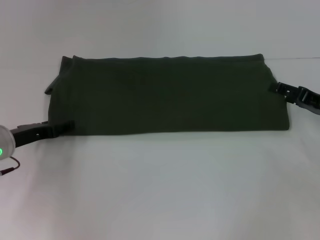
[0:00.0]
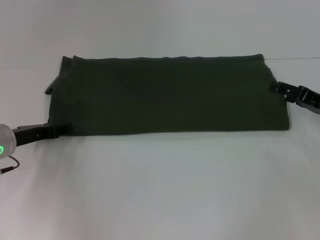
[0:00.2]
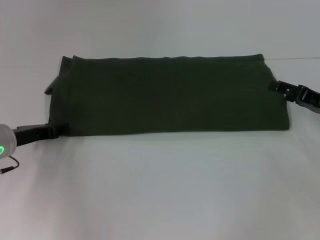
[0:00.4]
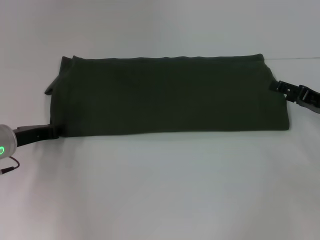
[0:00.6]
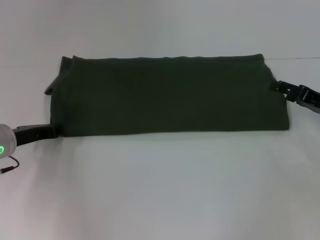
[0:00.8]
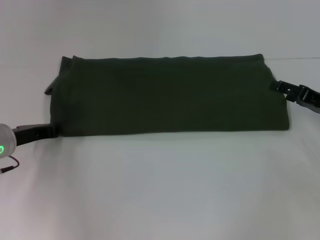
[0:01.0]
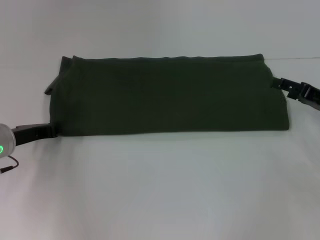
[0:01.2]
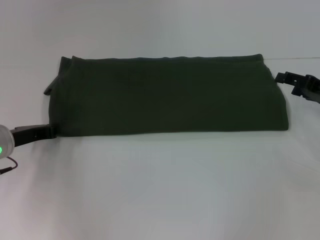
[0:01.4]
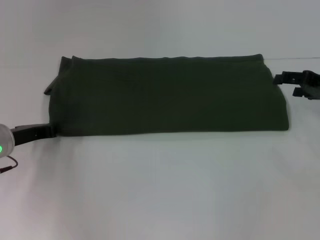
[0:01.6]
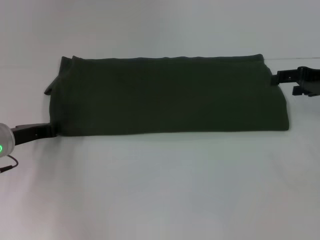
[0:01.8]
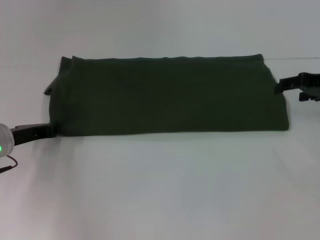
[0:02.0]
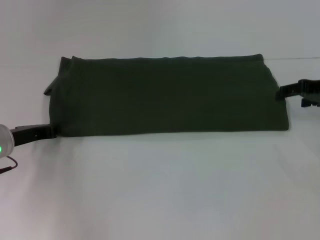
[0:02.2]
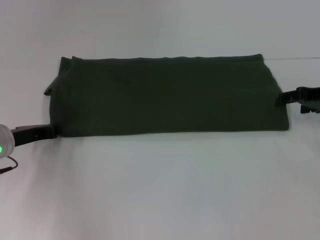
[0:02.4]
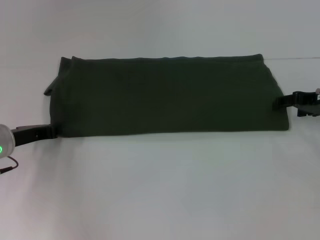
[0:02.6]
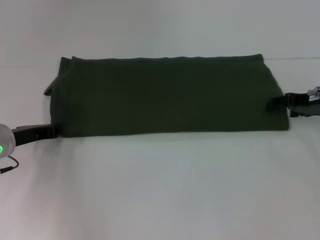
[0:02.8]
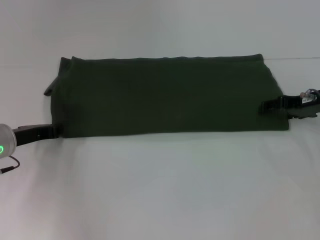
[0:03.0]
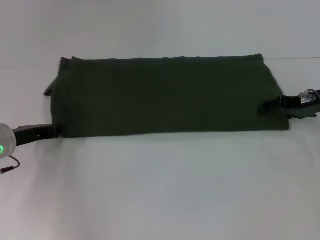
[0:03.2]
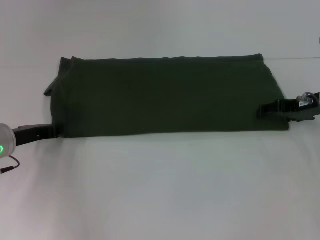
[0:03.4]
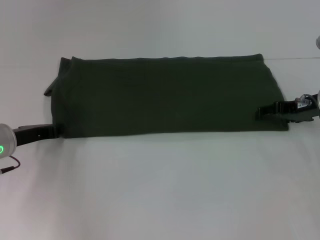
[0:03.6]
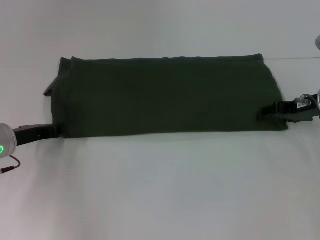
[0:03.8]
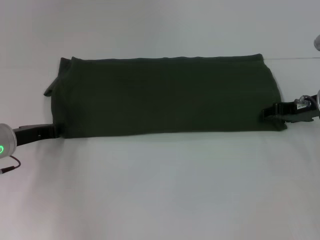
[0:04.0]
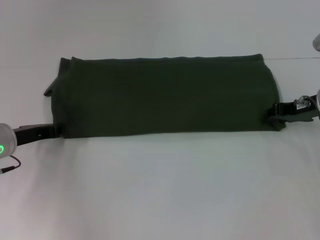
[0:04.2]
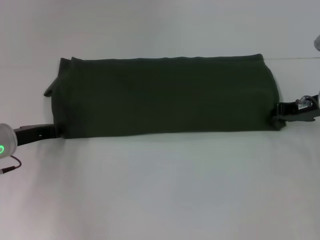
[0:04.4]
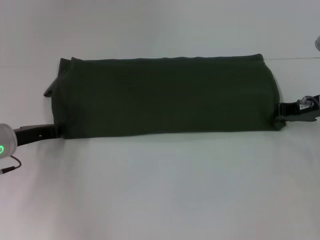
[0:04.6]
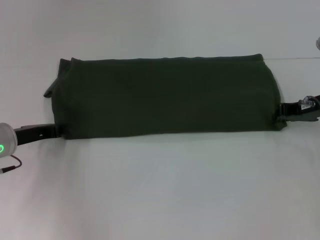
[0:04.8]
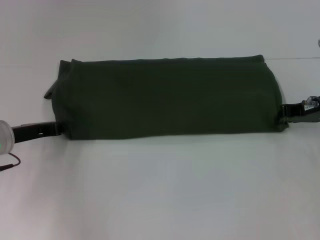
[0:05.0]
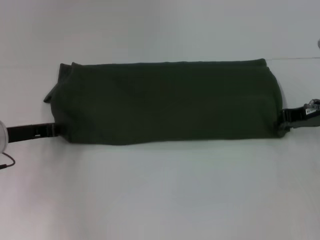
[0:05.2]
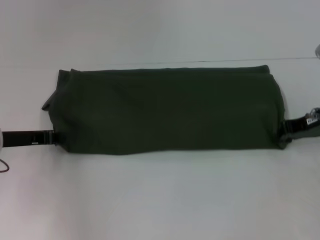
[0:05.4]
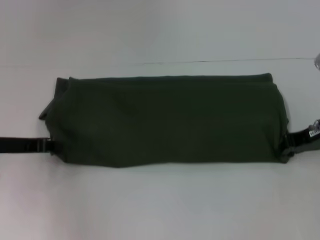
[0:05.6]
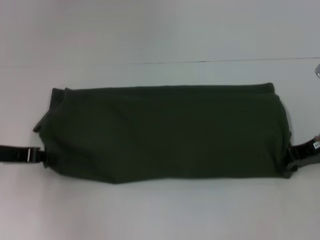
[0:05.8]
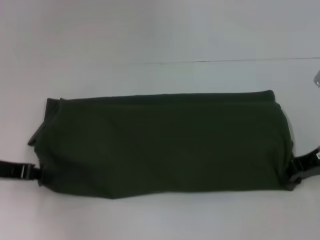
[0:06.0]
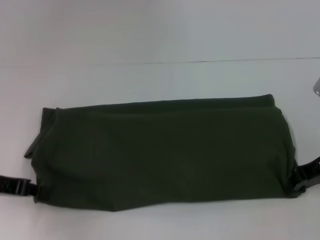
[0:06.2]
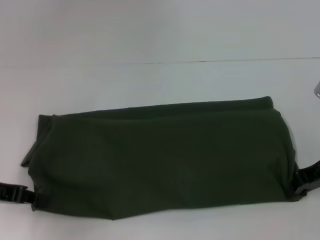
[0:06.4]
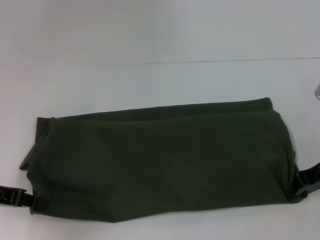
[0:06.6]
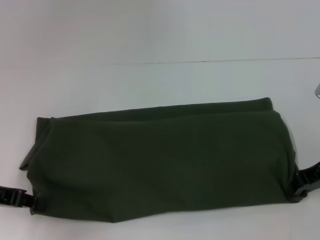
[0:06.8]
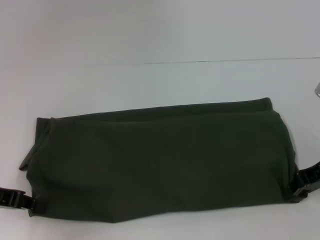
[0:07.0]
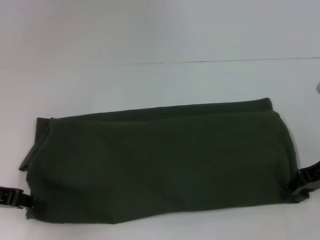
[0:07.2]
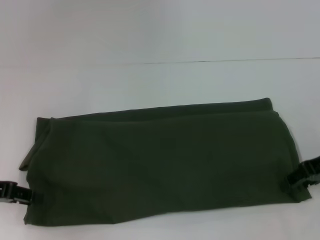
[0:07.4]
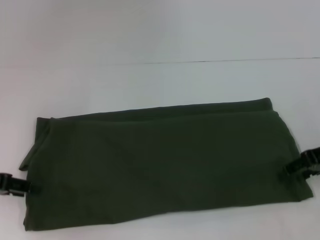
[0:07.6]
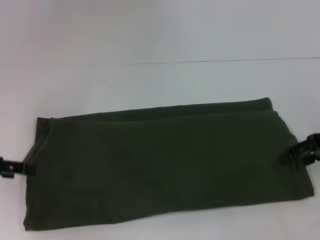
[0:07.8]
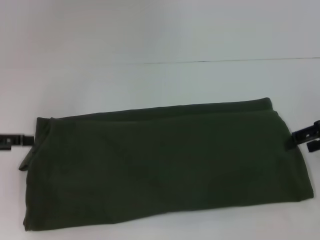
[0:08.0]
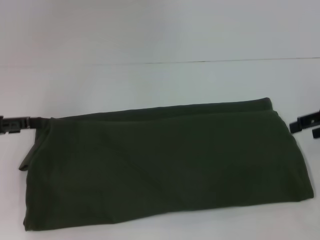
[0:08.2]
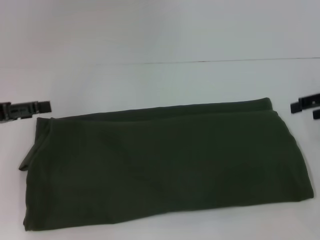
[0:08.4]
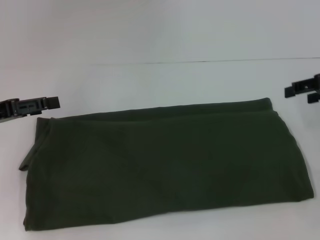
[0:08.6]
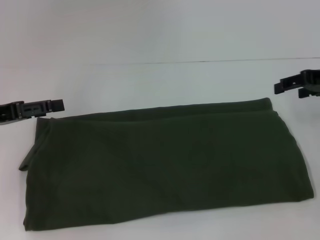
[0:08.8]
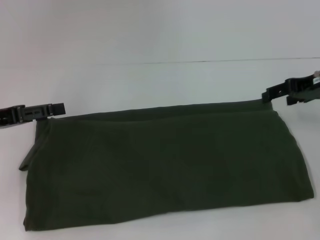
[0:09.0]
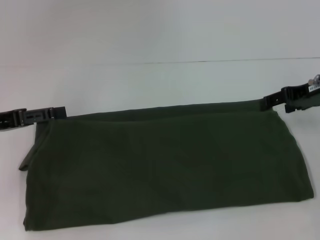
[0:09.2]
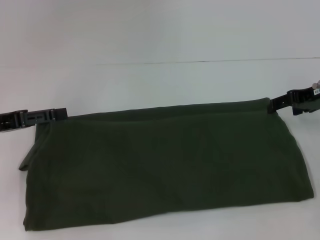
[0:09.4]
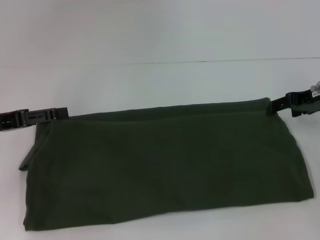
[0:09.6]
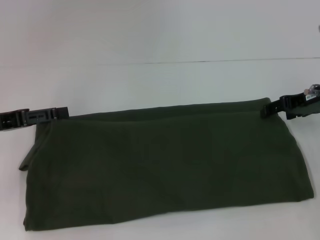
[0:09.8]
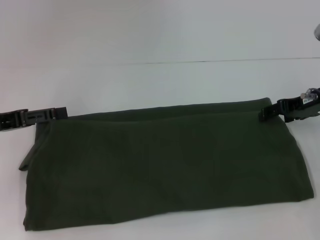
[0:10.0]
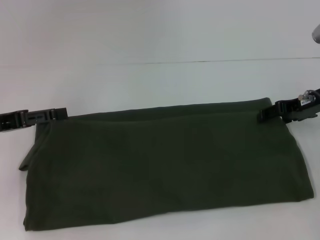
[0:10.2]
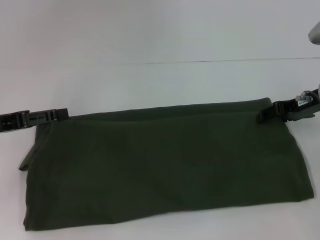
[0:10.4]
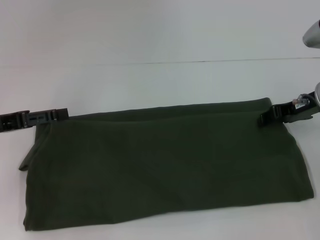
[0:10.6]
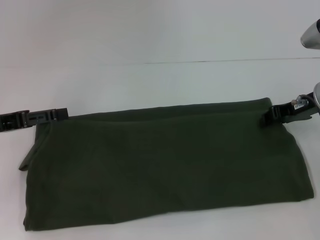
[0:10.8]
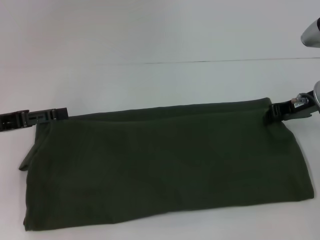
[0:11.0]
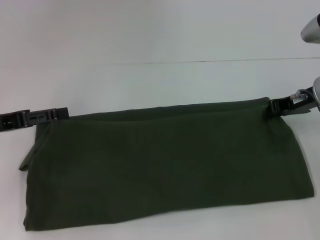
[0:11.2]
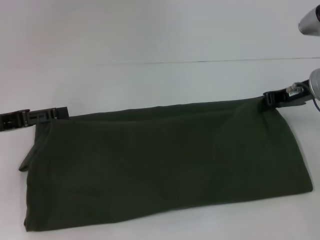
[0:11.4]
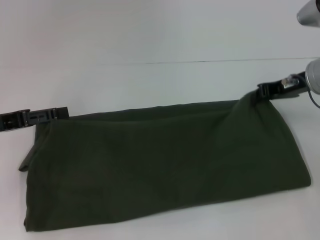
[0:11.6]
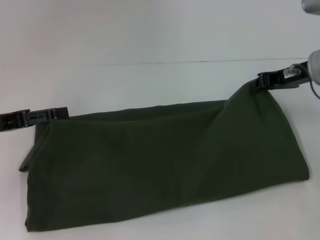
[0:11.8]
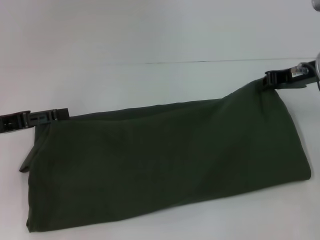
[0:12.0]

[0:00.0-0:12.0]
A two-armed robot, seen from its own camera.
Step, 0:00.0 to 0:07.6: Pull the clothes with your left hand.
Step, 0:00.0 to 0:07.6: Pull the clothes with your right hand.
0:00.0 to 0:01.6: The left gripper closes; the right gripper moves upward, some 5 cm.
0:01.6 to 0:03.0: The grippers move only a little.
0:03.0 to 0:04.4: The right gripper closes up.
0:04.4 to 0:06.0: The left gripper is displaced upward by approximately 5 cm. Meanwhile the right gripper heads backward, covering roughly 5 cm.
0:06.0 to 0:07.6: The right gripper opens up, while the left gripper opens its fingers.
0:07.6 to 0:09.0: The right gripper moves forward, roughly 5 cm, and opens up. Meanwhile the left gripper opens.
0:09.0 to 0:10.4: The grippers make only small movements.
0:10.4 to 0:12.0: The right gripper closes up.

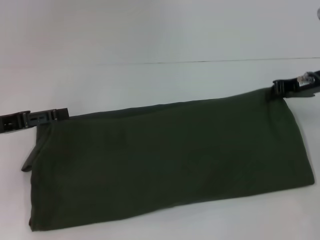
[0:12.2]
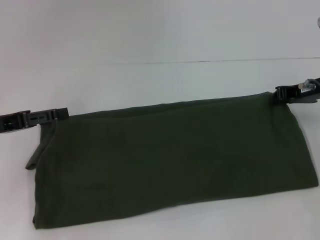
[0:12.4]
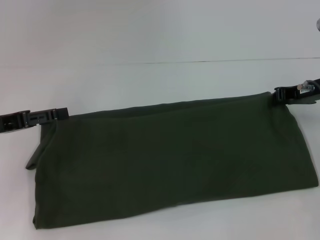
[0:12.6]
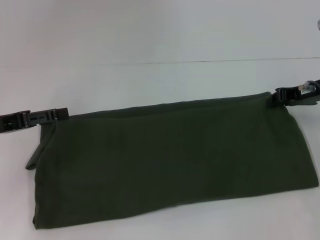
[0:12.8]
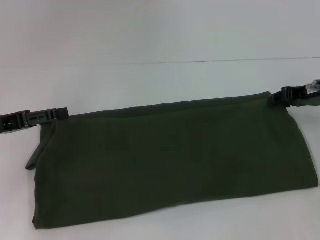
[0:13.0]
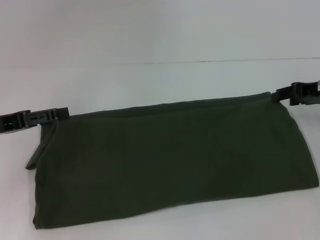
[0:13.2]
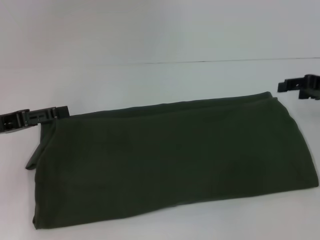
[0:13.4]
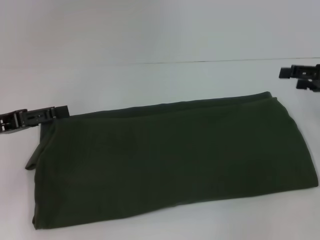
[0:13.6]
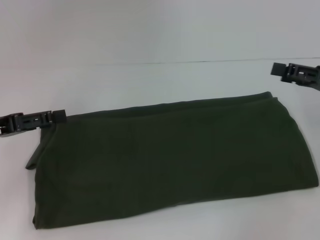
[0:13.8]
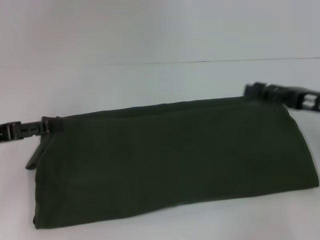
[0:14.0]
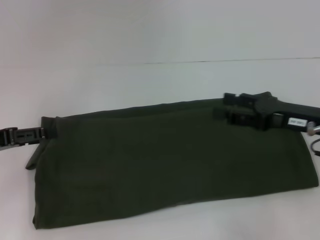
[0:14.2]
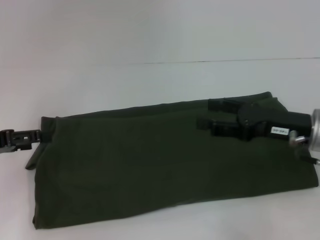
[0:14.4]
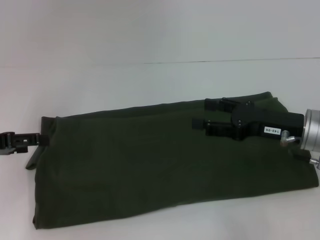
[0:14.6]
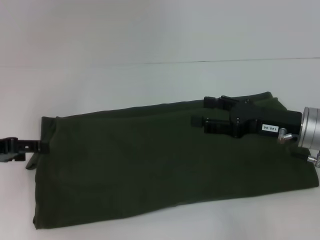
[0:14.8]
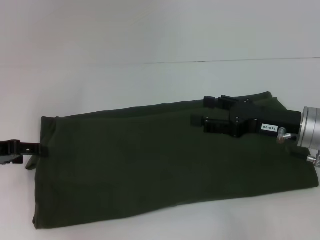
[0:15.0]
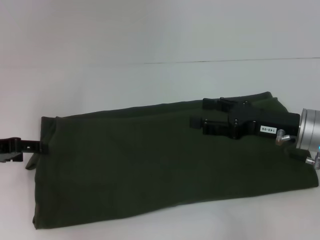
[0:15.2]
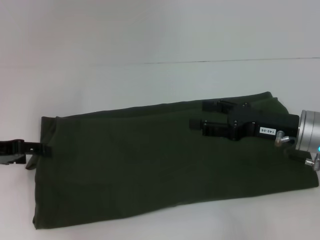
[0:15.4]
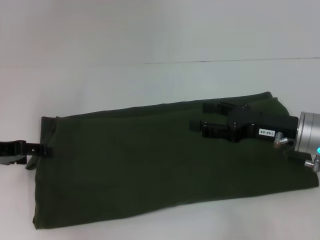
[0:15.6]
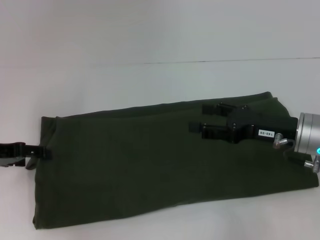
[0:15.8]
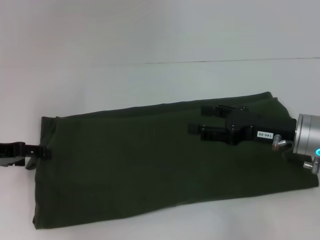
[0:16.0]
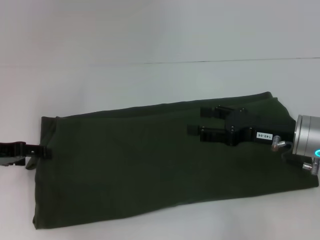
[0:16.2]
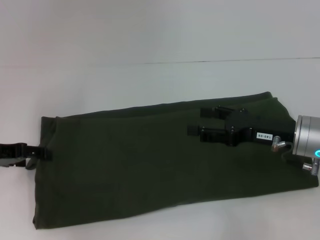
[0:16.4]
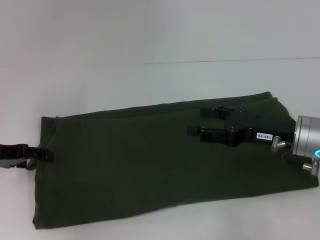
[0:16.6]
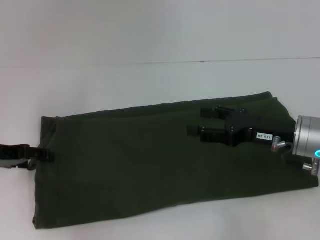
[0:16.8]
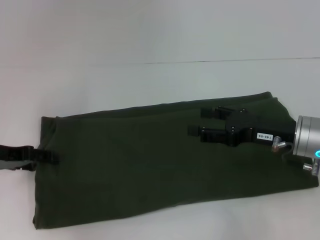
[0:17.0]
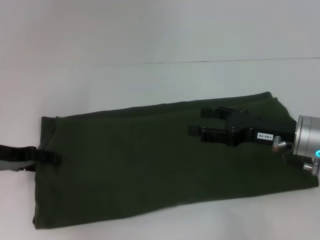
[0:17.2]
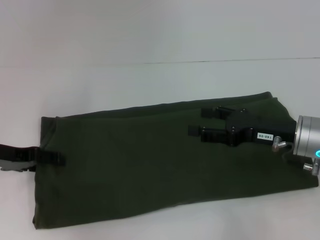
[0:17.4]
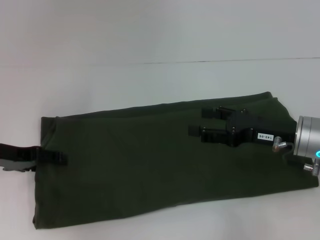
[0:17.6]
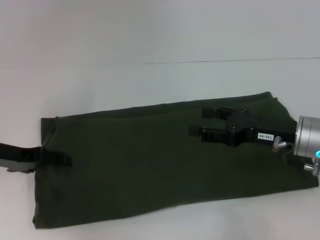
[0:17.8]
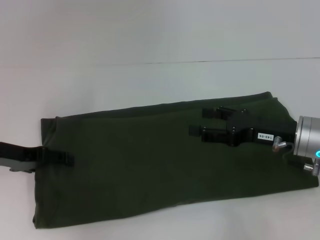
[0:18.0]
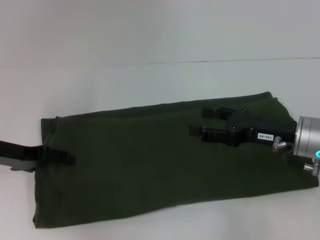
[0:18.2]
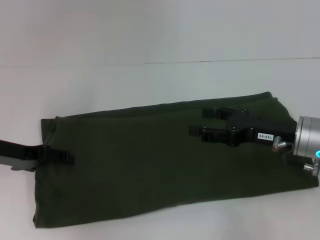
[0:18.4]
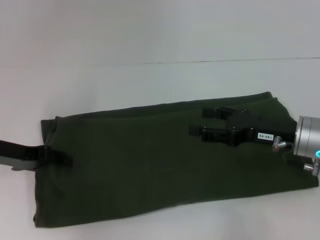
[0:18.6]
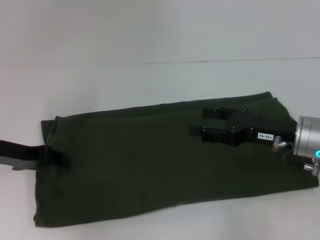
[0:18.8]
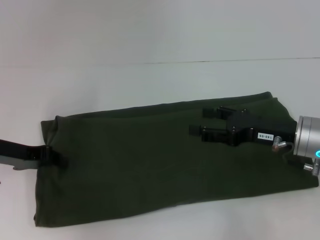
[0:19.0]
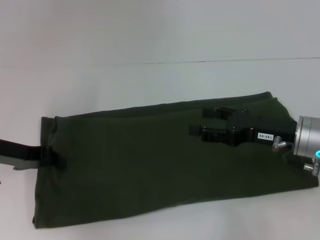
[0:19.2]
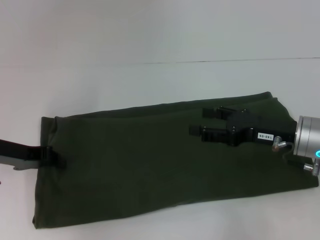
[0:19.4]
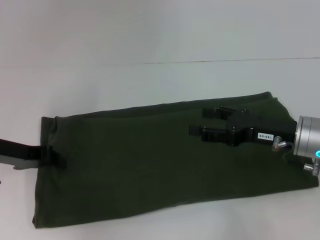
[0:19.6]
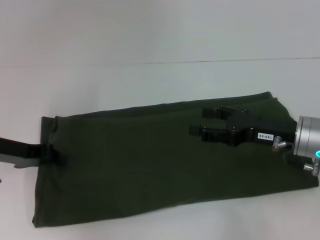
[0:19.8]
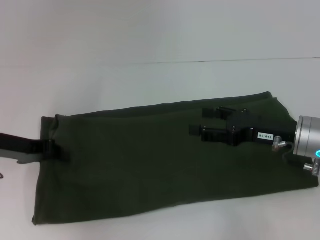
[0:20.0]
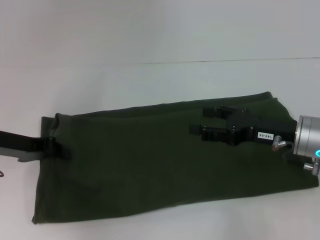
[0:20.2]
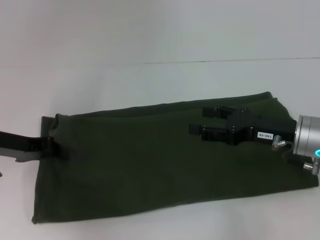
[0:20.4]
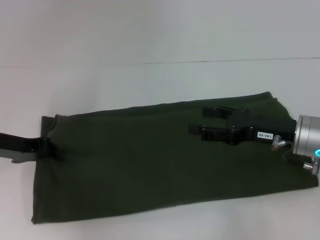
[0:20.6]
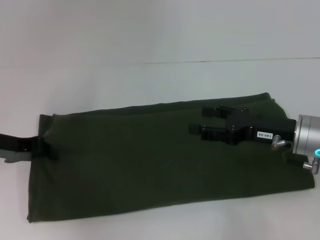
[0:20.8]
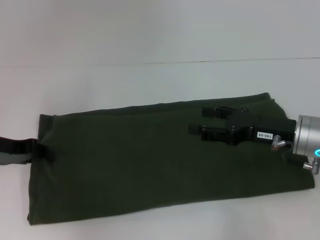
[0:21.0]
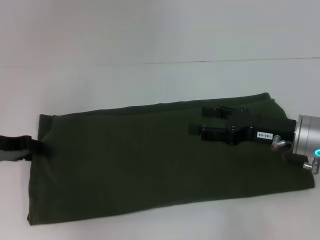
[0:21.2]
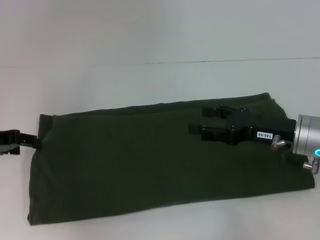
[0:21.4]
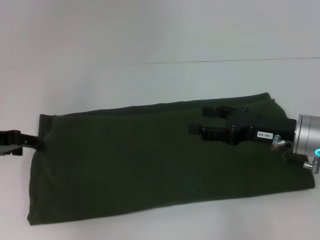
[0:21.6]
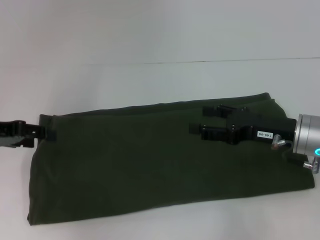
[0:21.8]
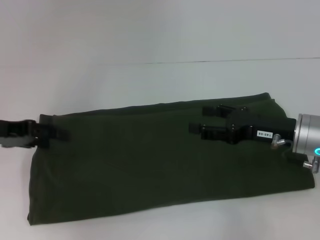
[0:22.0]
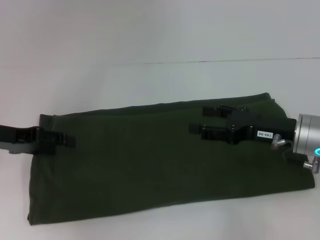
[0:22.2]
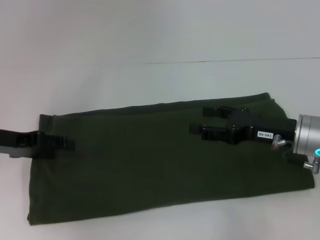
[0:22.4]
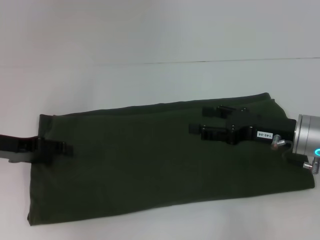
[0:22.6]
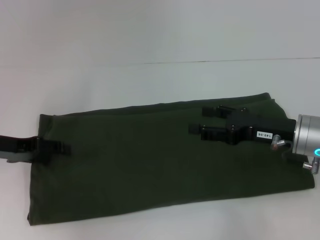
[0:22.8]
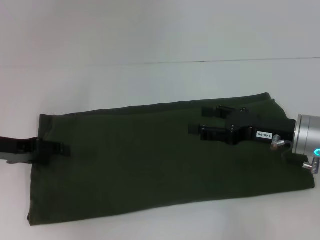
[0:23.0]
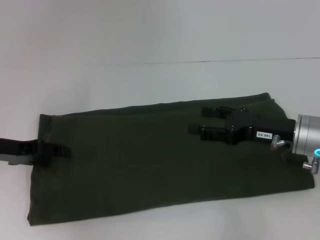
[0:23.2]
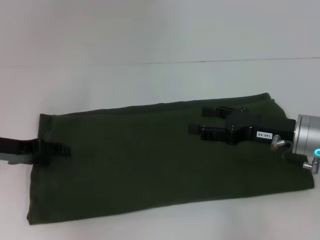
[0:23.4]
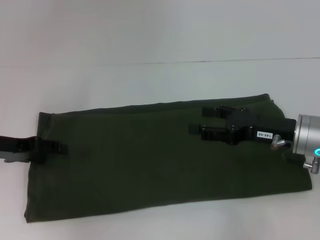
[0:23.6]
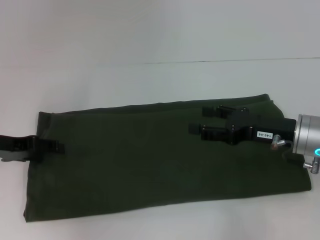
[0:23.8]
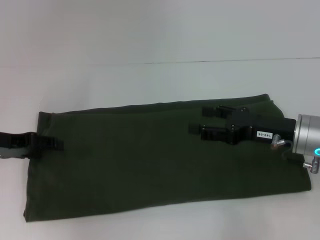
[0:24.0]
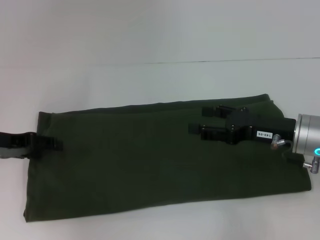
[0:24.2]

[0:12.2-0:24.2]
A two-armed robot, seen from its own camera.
0:12.2 to 0:13.8: The right gripper heads backward and to the right, covering about 10 cm, and opens up.
0:13.8 to 0:15.2: The right gripper goes some 10 cm to the left and downward.
0:15.2 to 0:18.2: The grippers make only small movements.
0:18.2 to 0:19.8: The left gripper closes.
0:19.8 to 0:21.2: There are only small adjustments of the grippers.
0:22.6 to 0:24.2: There are only small adjustments of the grippers.
